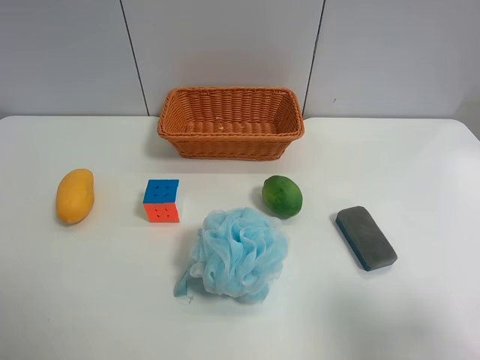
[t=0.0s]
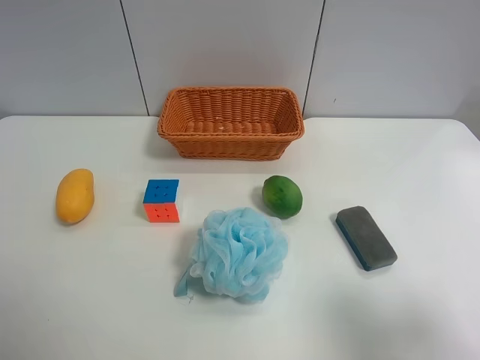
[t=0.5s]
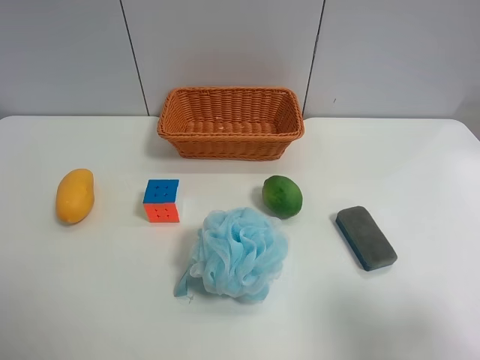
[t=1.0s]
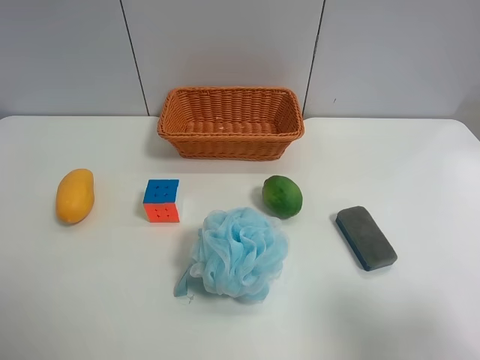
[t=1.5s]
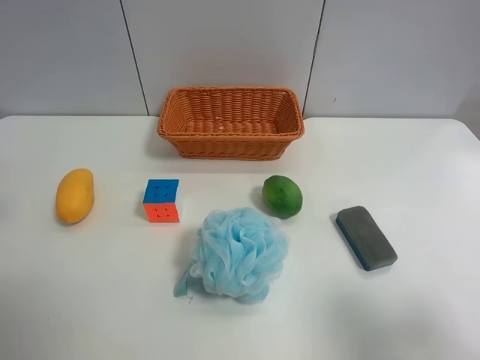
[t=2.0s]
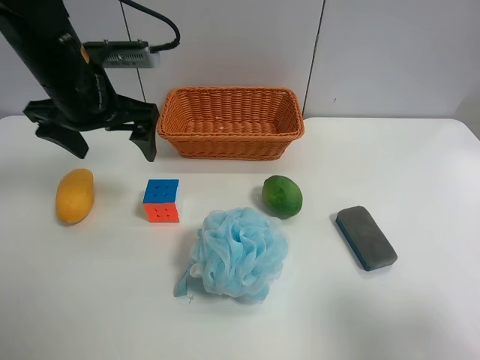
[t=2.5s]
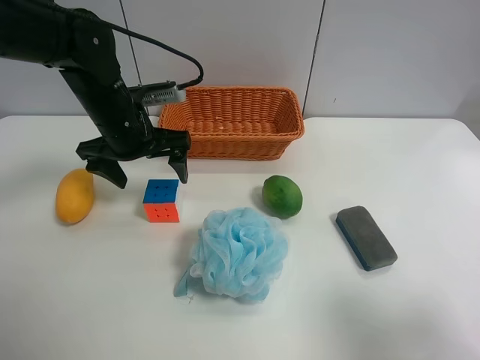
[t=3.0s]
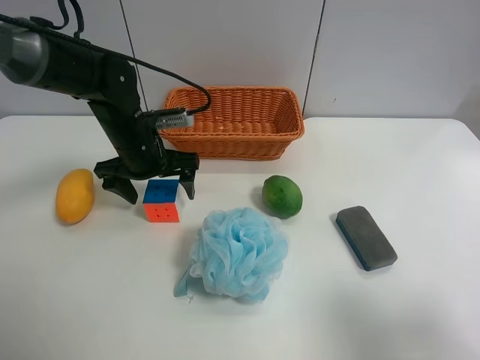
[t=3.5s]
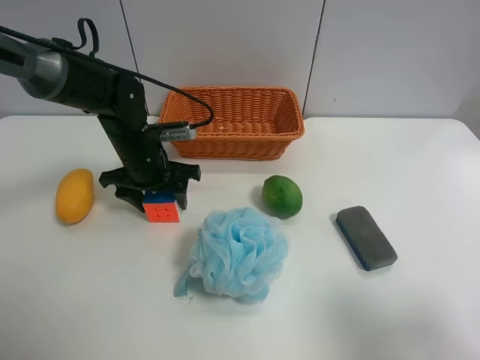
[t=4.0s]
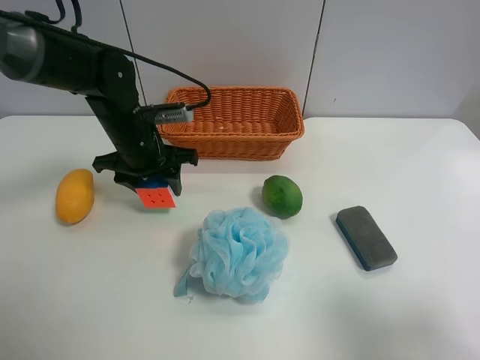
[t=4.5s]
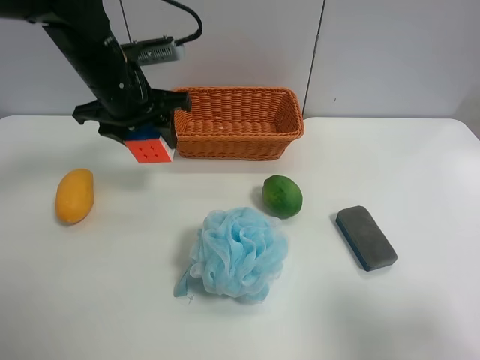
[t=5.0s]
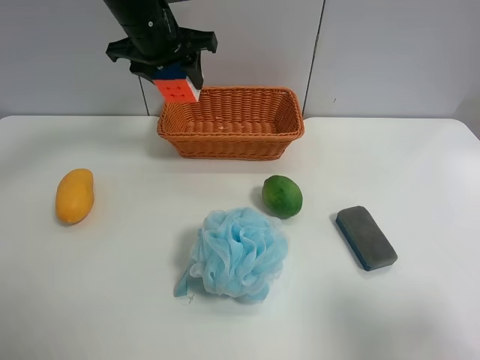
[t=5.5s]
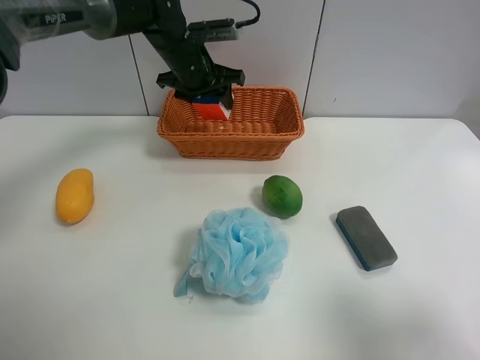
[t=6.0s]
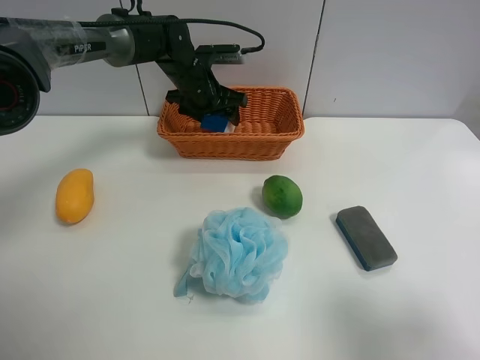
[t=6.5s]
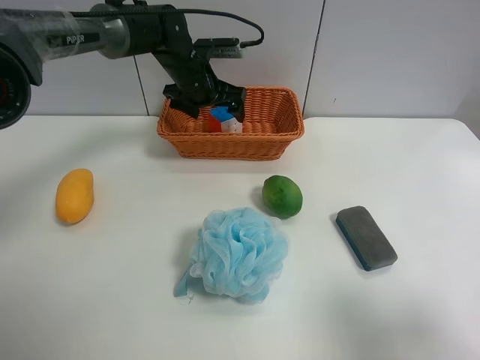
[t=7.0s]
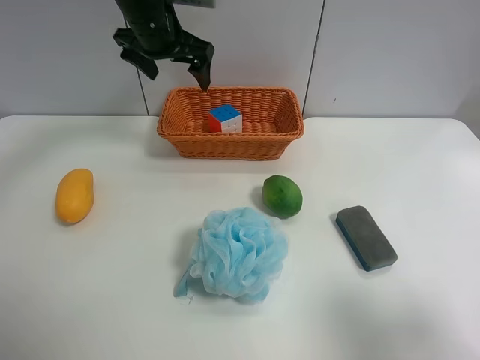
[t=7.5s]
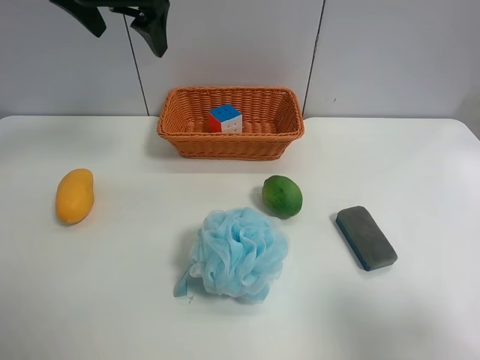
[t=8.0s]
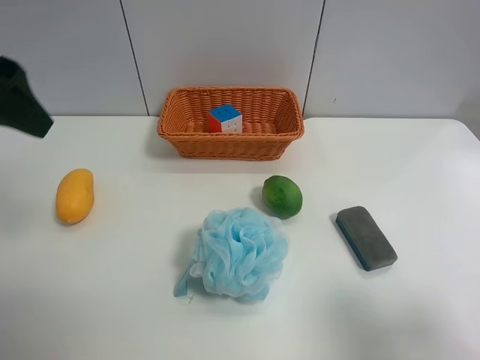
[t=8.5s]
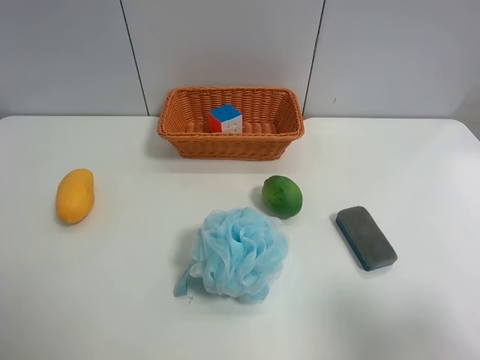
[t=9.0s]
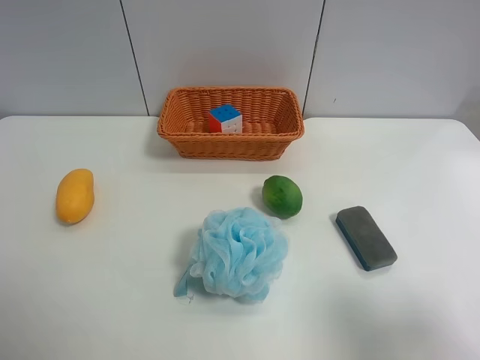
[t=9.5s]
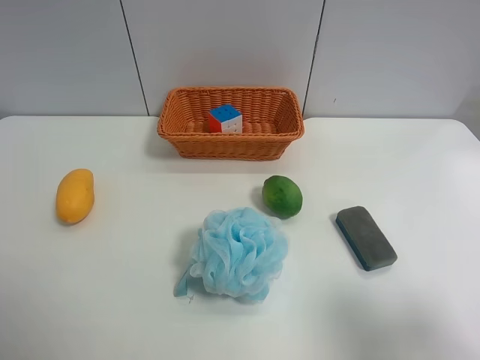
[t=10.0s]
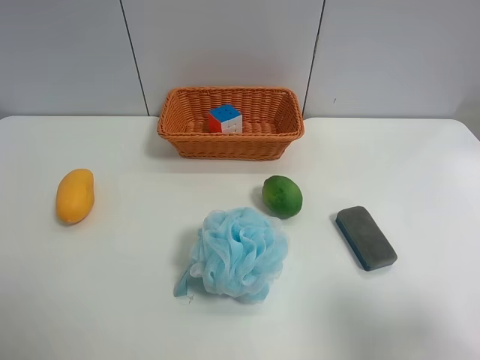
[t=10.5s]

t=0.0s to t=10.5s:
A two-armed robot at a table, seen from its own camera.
Task of the whole recording: use the left gripper to grab items from the table and place them in the basket.
Step, t=0.0s to t=4.0s: Grasp the Rubik's Cube with the left gripper.
Step, t=4.5s to t=6.5s: Place the Rubik's Cube into the basket with the left gripper.
t=2.0s to t=4.0s: The left gripper is displaced downward, forward and to the right by about 30 cm, and closes its fingers.
t=4.0s to t=6.5s: The left gripper moves forward and to the right, some 15 cm, travels upward and back again, about 15 cm each way, and opens its fingers.
t=6.5s to t=8.5s: The left gripper travels backward, upward and to the left by some 40 cm, and opens up.
t=8.5s to t=10.5s: The left gripper moves backward and downward, some 20 cm.
